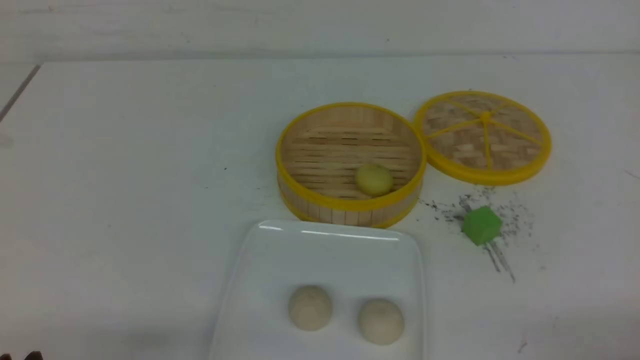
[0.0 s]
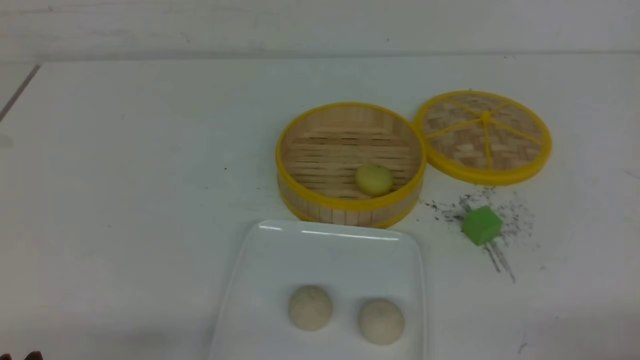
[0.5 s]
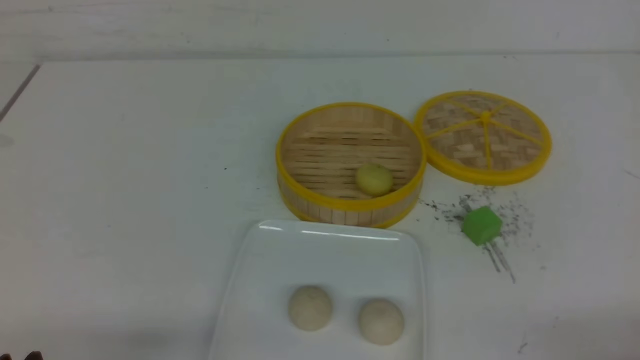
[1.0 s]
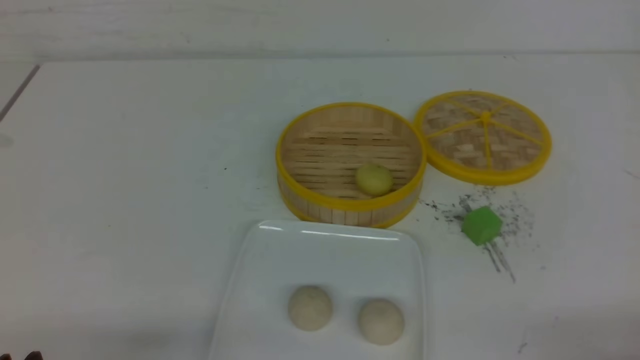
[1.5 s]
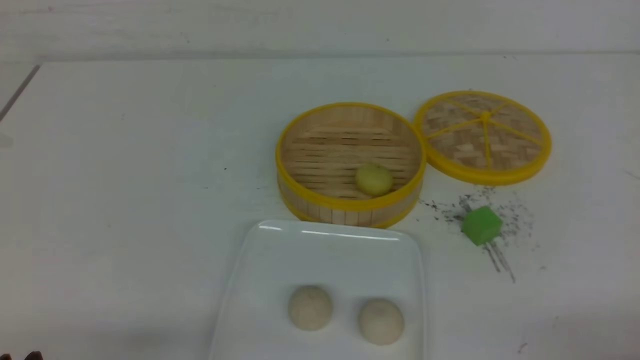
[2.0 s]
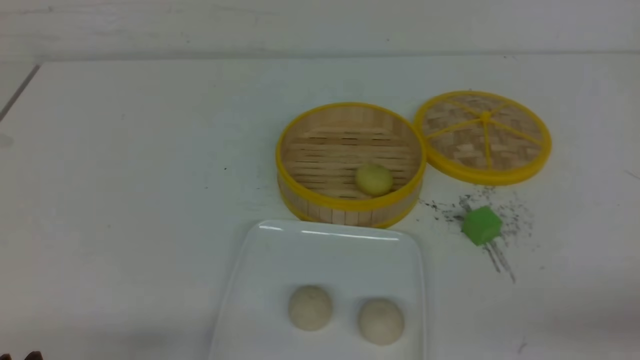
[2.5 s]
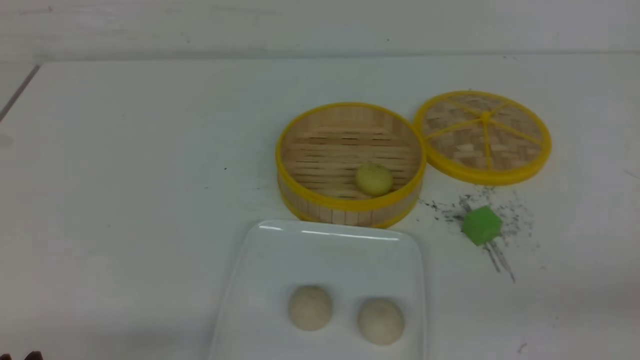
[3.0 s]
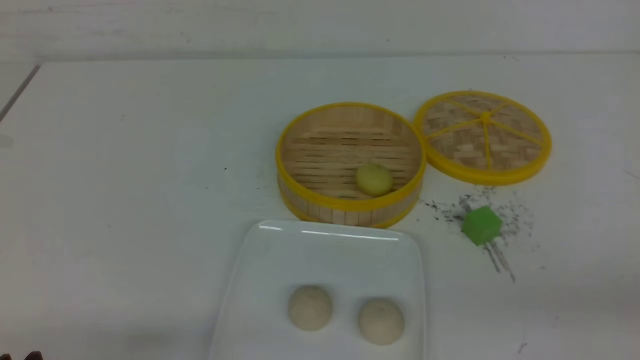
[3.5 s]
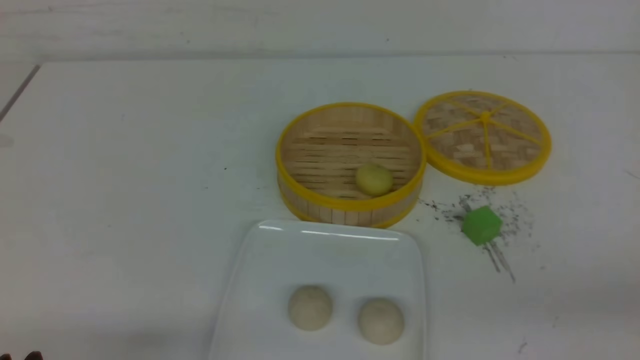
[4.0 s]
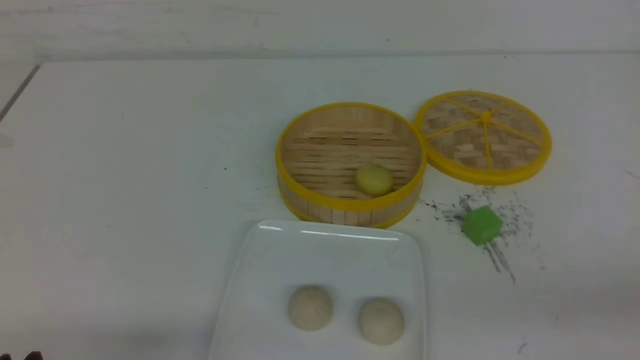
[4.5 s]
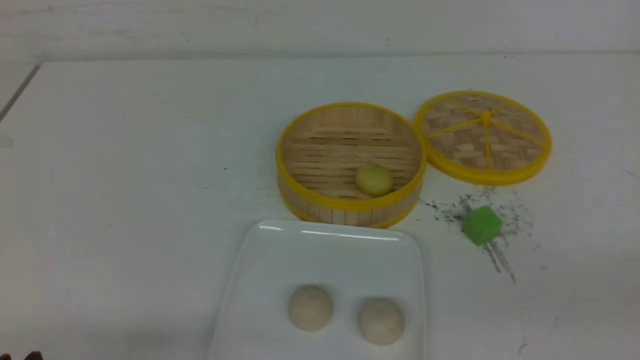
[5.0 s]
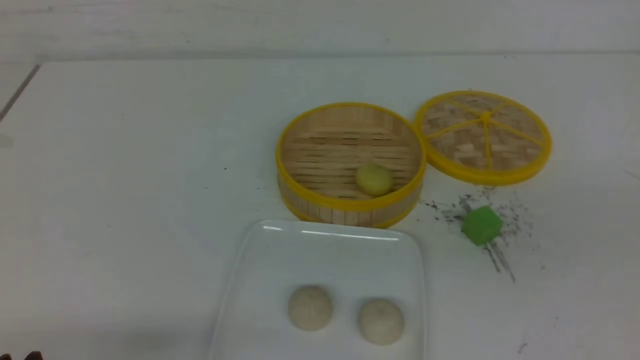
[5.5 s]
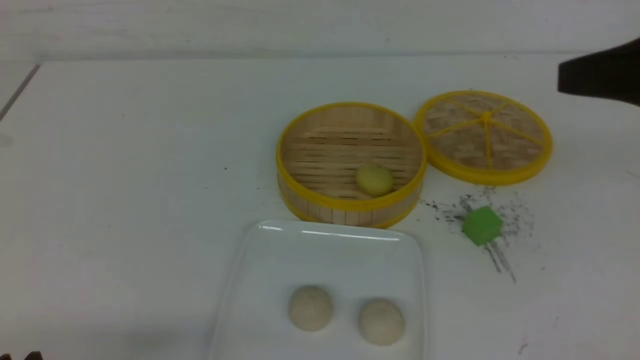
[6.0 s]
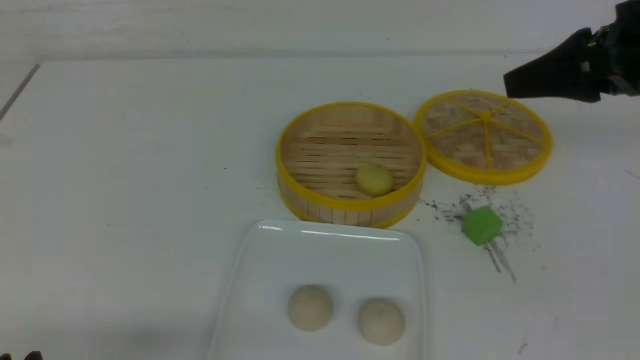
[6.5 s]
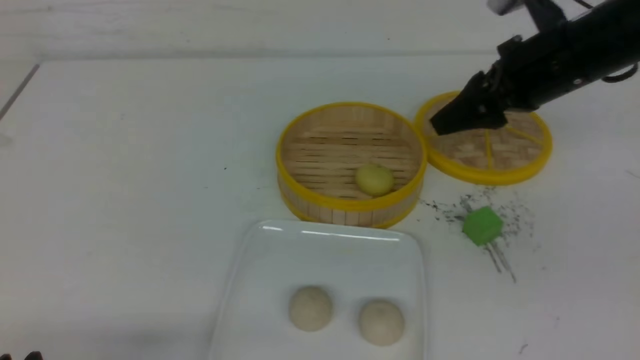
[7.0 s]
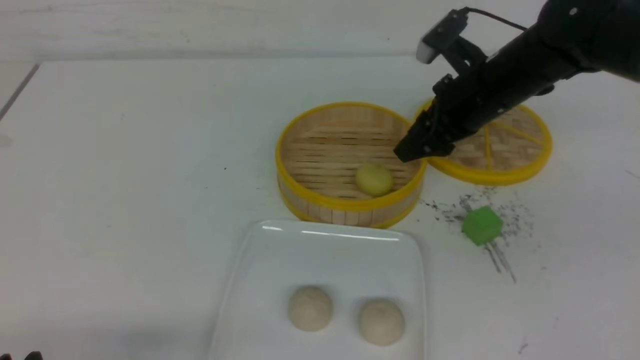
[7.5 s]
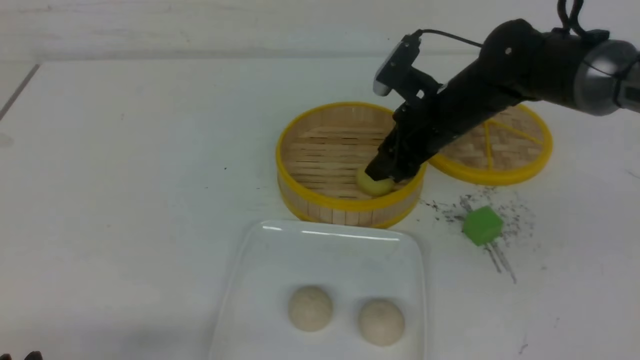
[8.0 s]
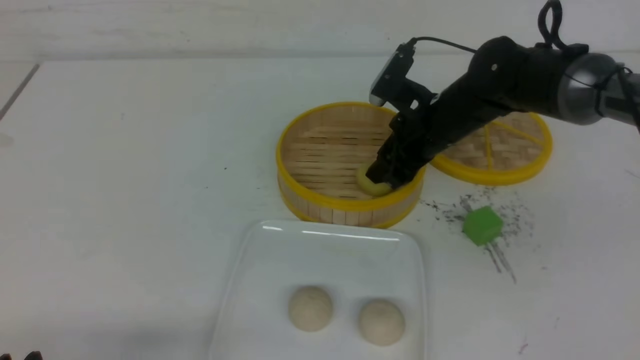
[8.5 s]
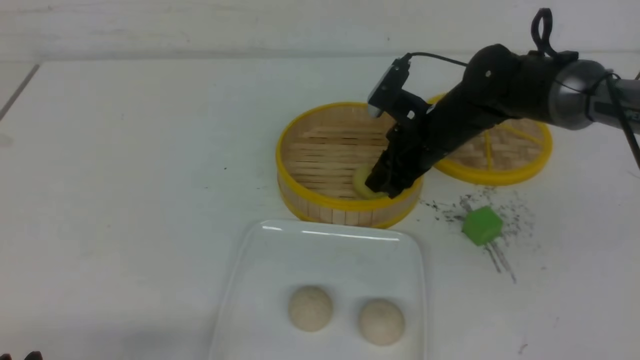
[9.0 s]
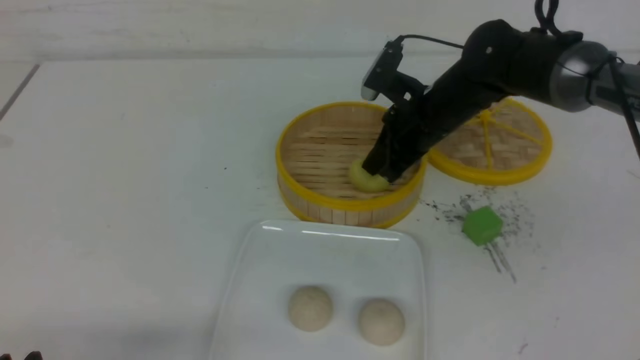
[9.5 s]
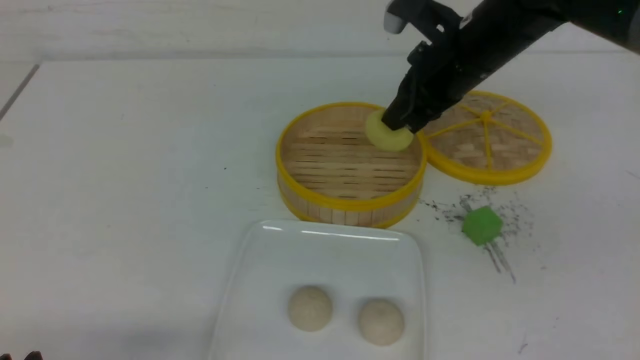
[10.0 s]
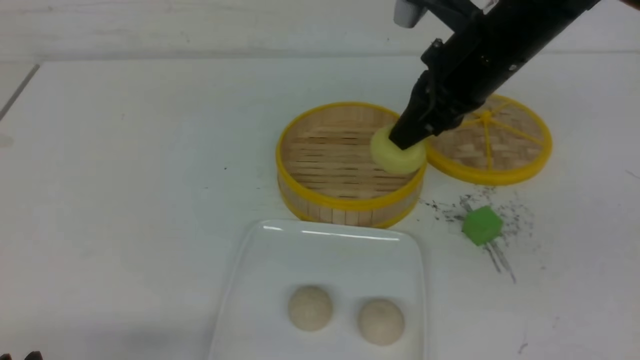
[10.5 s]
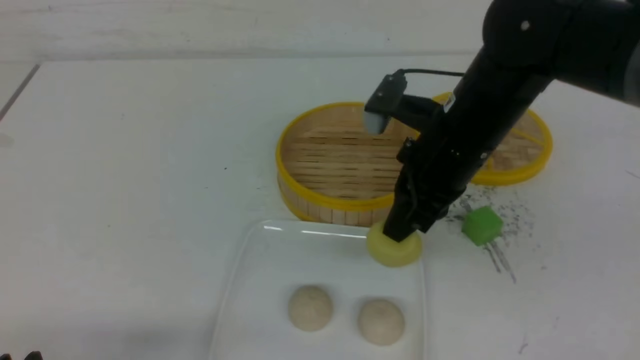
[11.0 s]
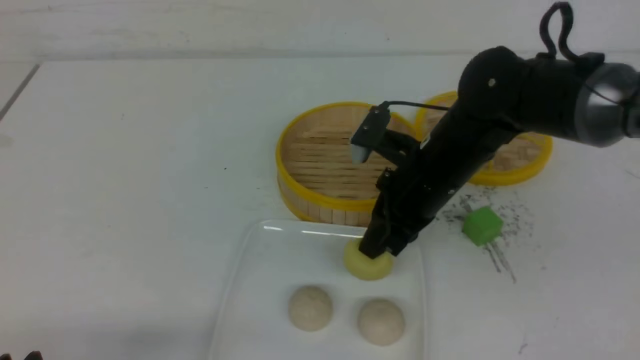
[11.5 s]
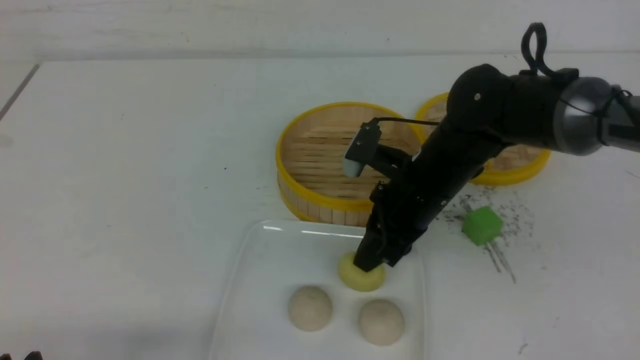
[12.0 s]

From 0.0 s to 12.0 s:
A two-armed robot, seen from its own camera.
Step, from 0.0 s to 8.5 s: use the right arm to grab the steamed stuffed bun that is closest to it.
From 0.0 s to 2.0 s: The two grippers keep their place.
From 4.0 s to 6.0 s: The right gripper is displaced forward and upward by about 20 cm.
From 6.0 s to 8.0 s: The right gripper is displaced forward, downward and to the left by some 30 cm, and opens its fingers.
From 8.0 s to 10.0 s: The right gripper goes approximately 10 cm upward, and closes its fingers.
From 10.0 s to 12.0 s: The right gripper moves downward and backward, roughly 15 cm, and opens its fingers.

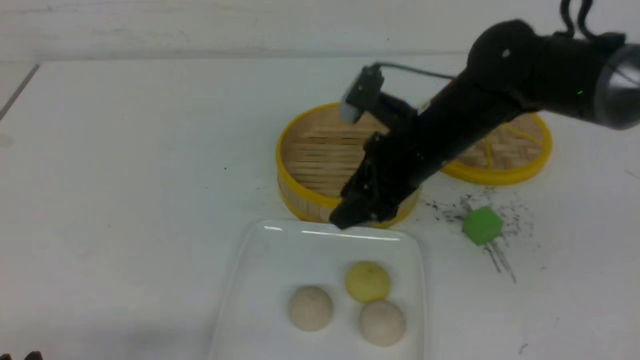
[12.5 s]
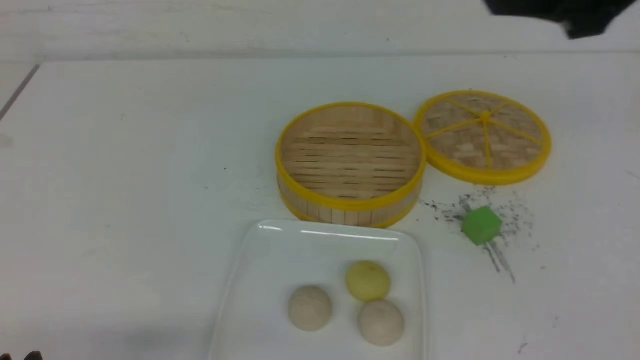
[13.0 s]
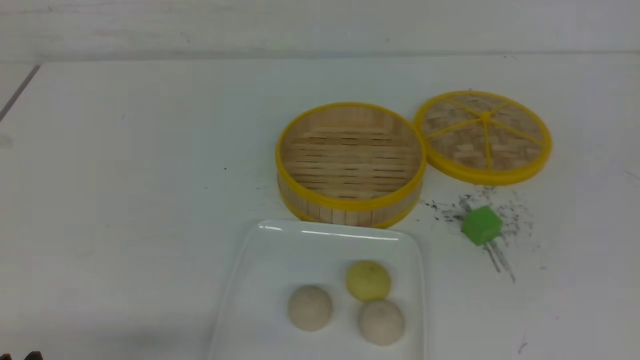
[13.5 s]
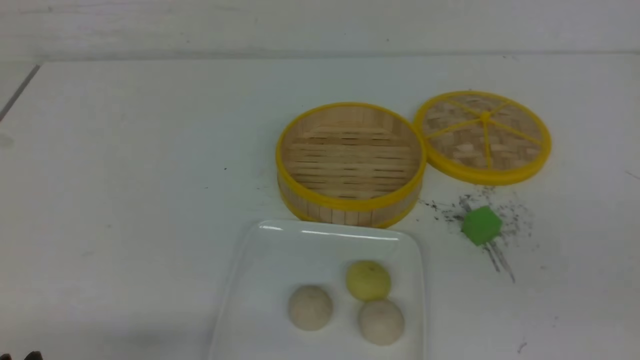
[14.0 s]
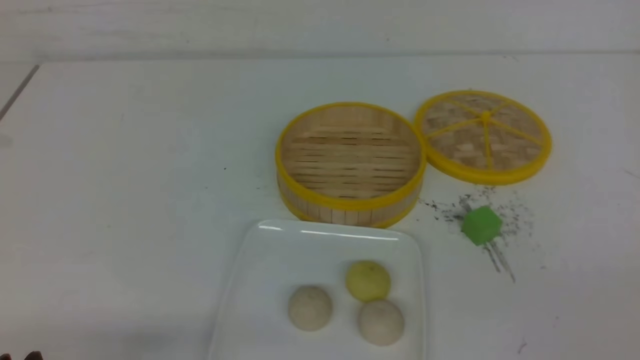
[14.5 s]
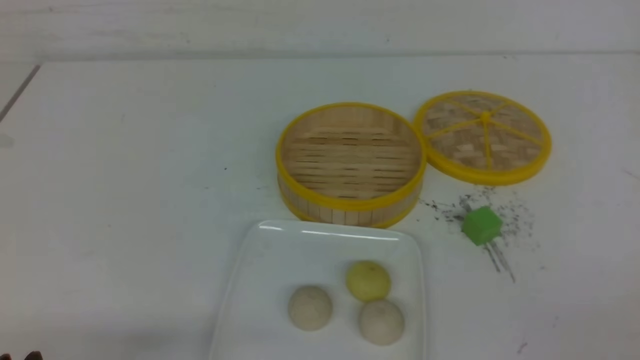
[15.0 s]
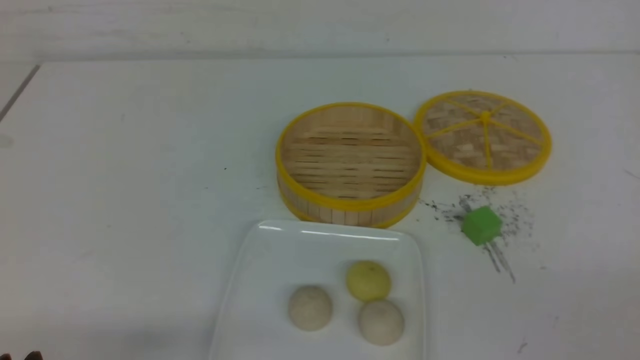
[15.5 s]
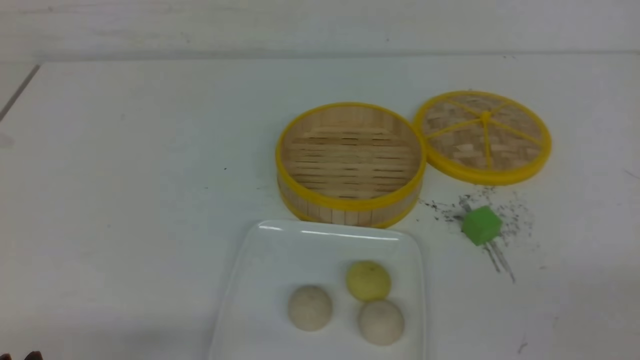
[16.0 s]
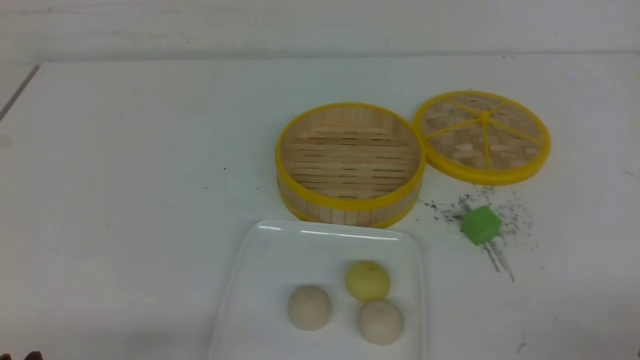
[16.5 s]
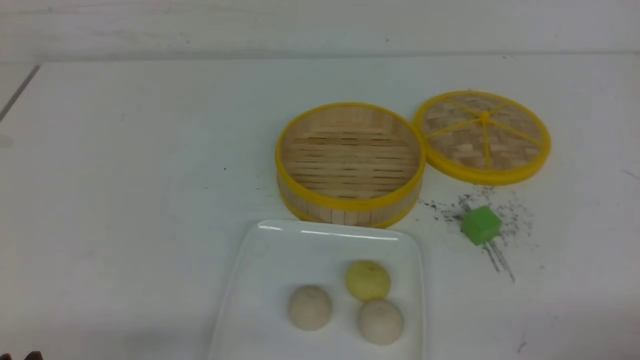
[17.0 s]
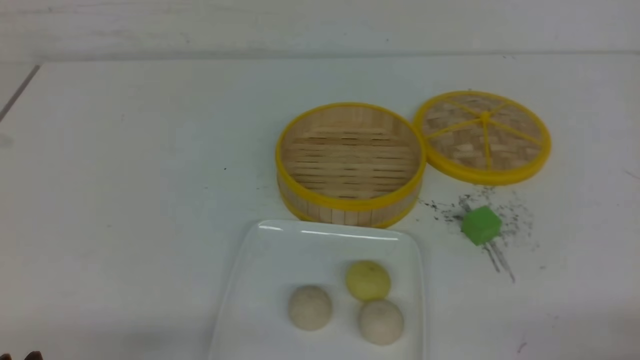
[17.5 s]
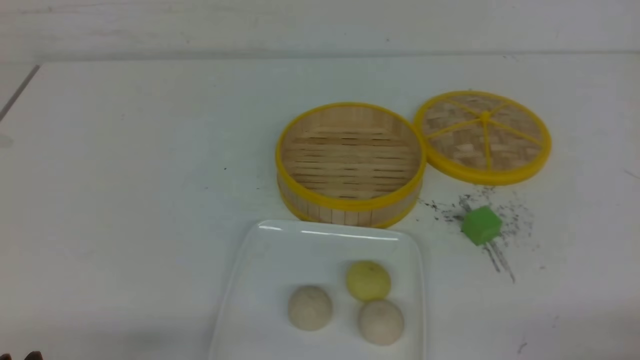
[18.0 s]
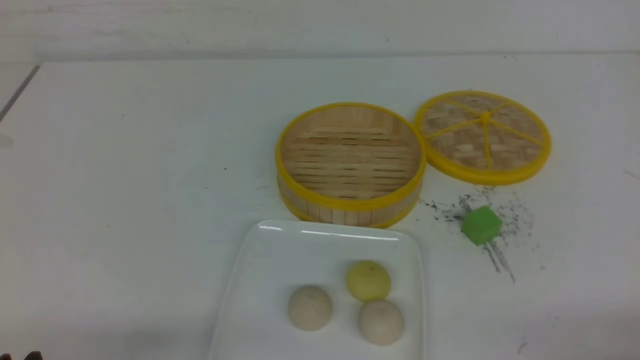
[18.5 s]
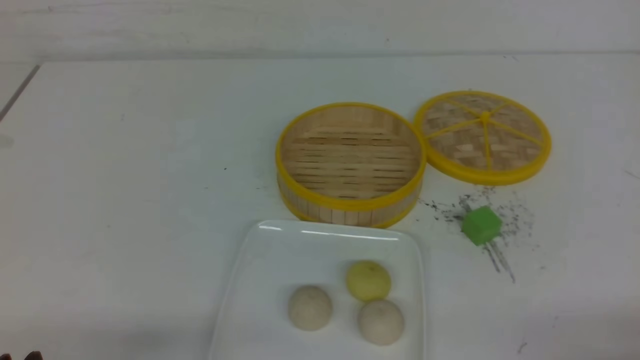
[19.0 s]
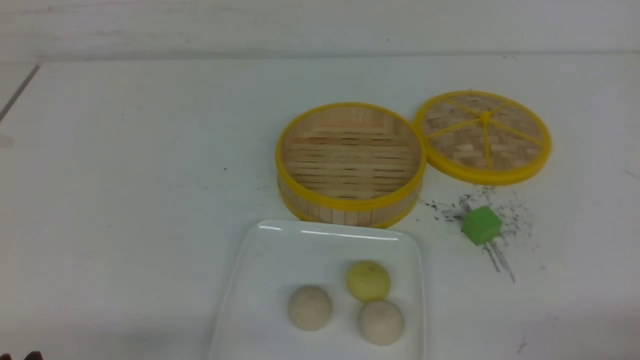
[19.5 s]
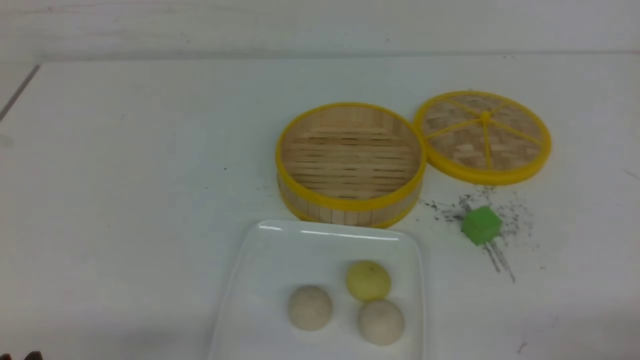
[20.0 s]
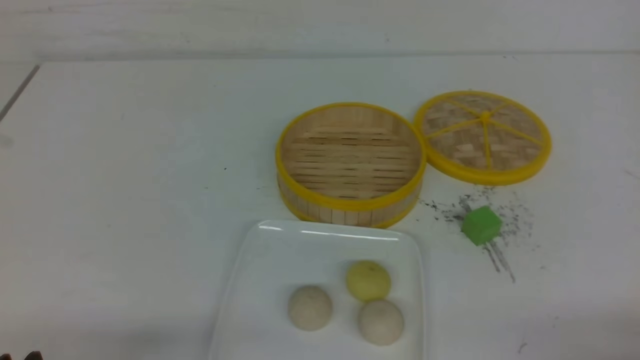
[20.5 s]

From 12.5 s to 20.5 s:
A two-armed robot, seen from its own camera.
From 12.5 s to 14.5 s: The right gripper travels backward and to the right by approximately 40 cm.
From 18.5 s to 20.5 s: The two grippers keep their place.
